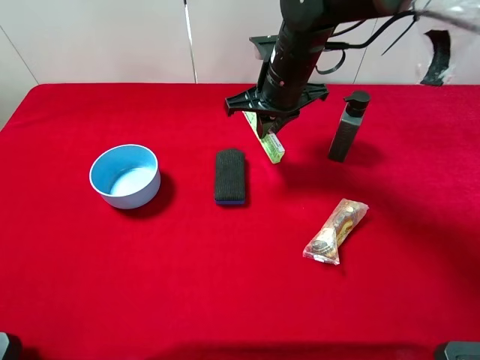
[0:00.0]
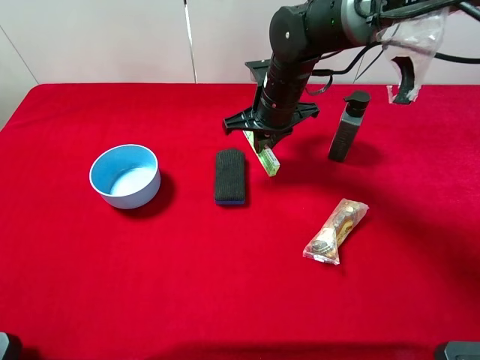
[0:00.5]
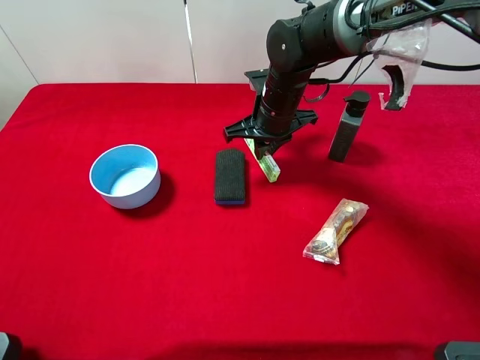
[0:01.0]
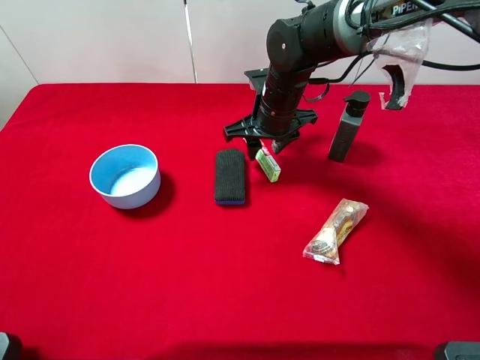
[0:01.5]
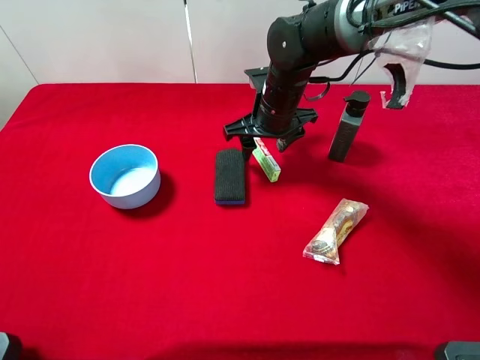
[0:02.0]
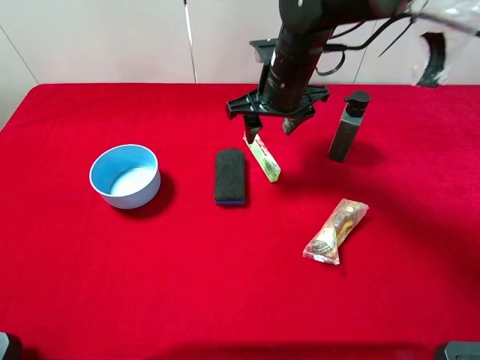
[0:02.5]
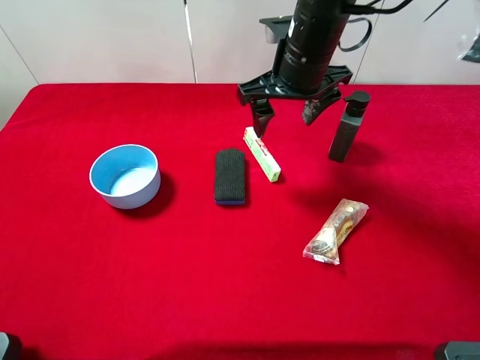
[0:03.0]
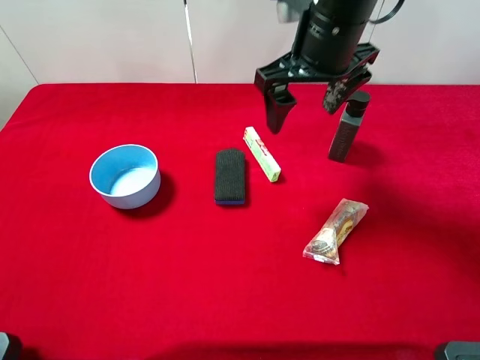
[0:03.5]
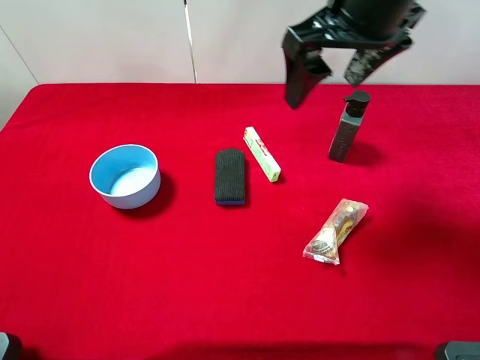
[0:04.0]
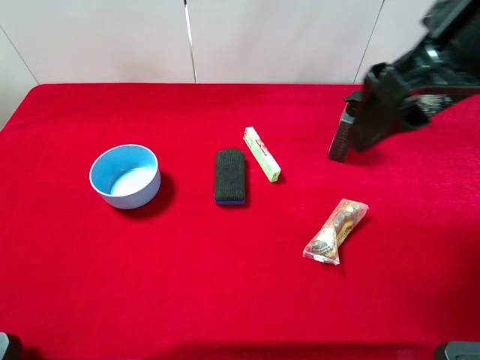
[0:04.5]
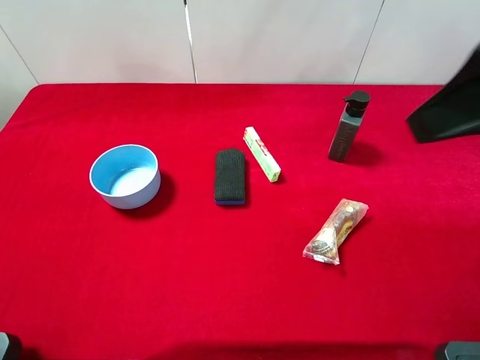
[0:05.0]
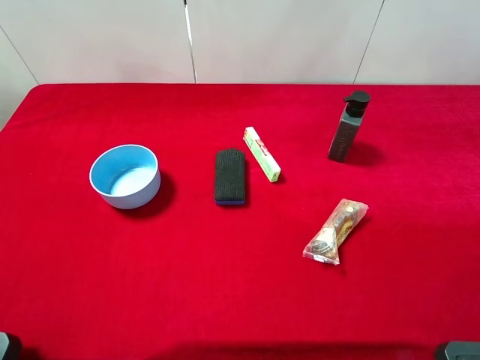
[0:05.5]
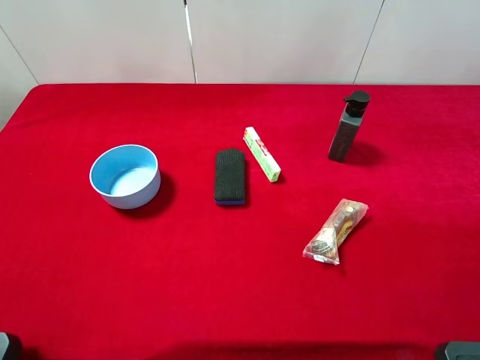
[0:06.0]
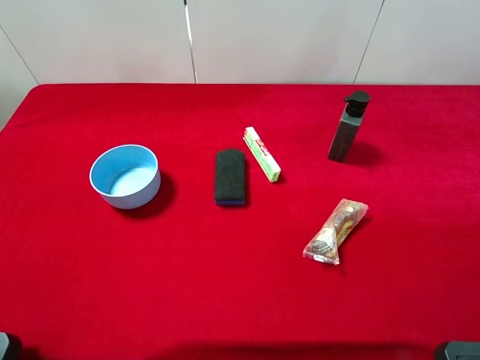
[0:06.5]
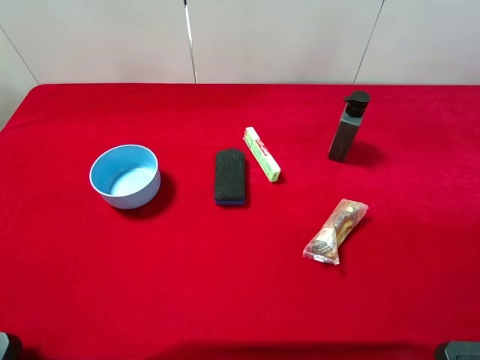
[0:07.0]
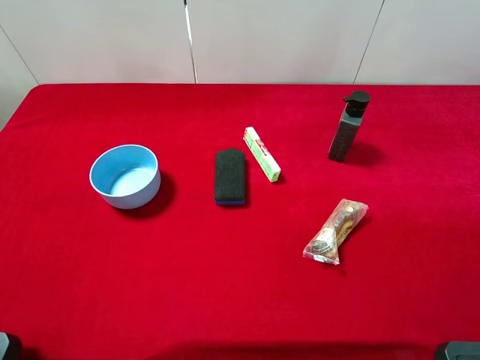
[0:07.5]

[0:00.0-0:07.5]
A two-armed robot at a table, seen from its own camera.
Task of the whole recording: the gripper move the object.
Step, 0:00.0 to 0:02.5: Place the fruit candy on the table with the right gripper.
0:00.0 to 0:02.0: The right gripper opens.
0:02.0 to 0:04.0: The right gripper shifts roughly 20 cm upward and backward.
0:04.0 to 0:05.5: The right gripper goes roughly 20 cm backward and to the right.
